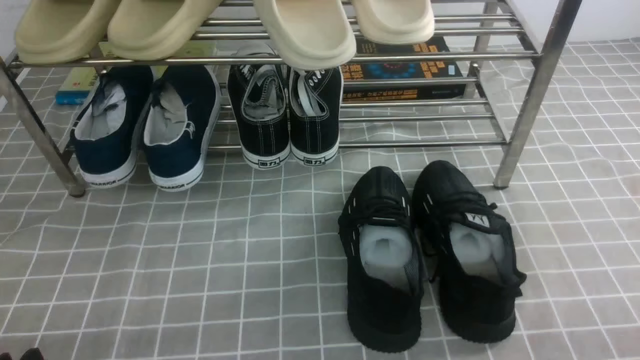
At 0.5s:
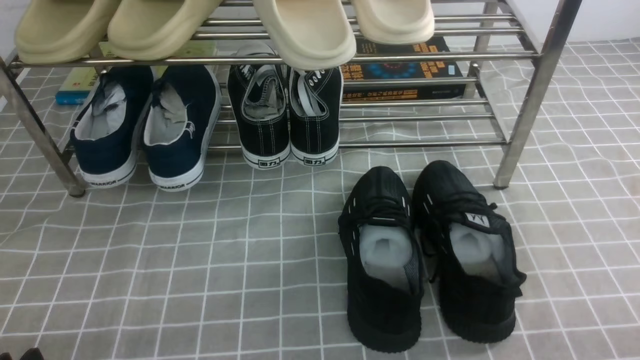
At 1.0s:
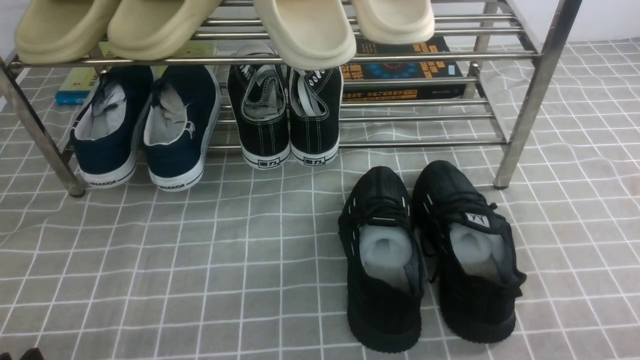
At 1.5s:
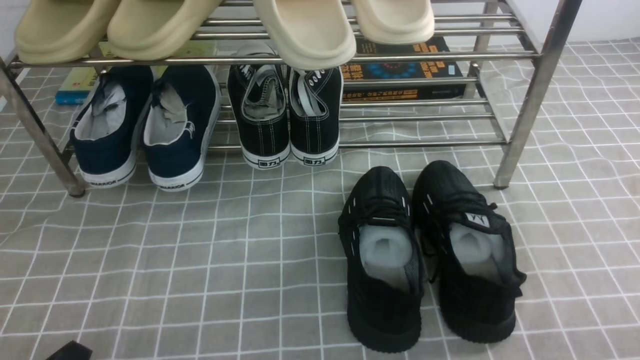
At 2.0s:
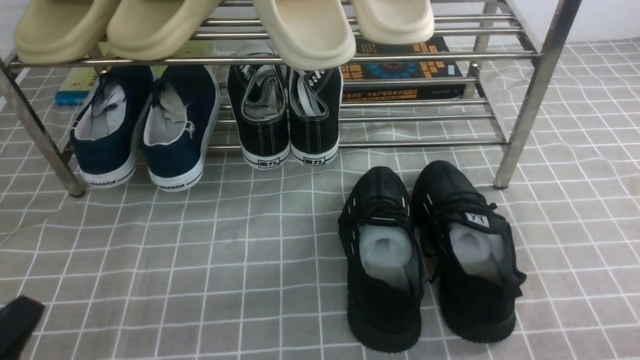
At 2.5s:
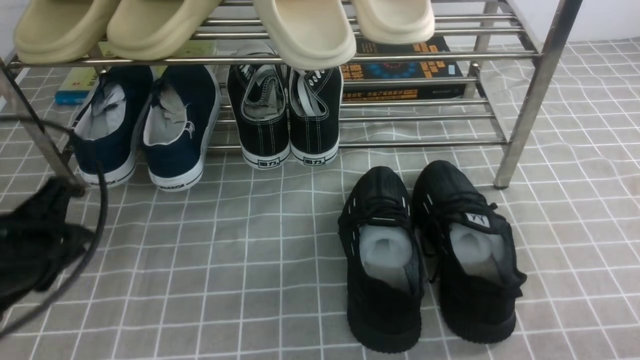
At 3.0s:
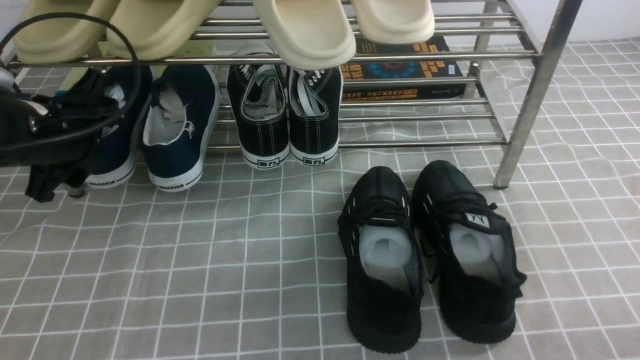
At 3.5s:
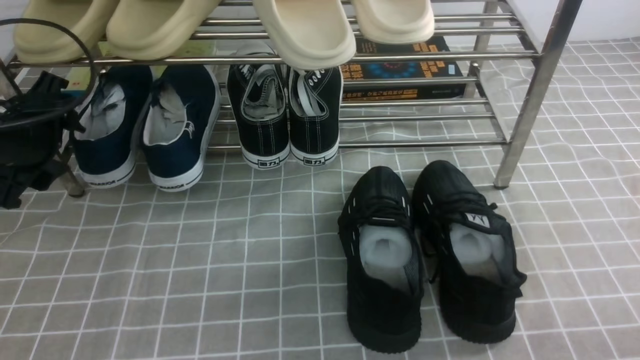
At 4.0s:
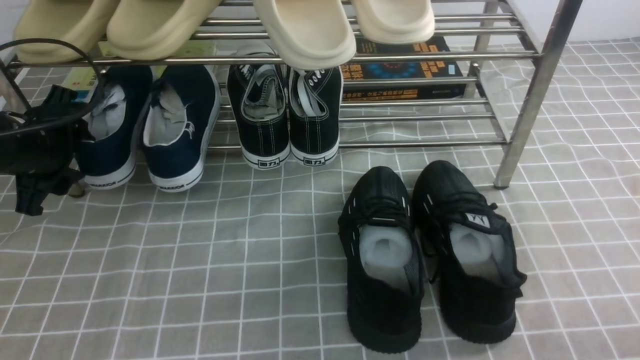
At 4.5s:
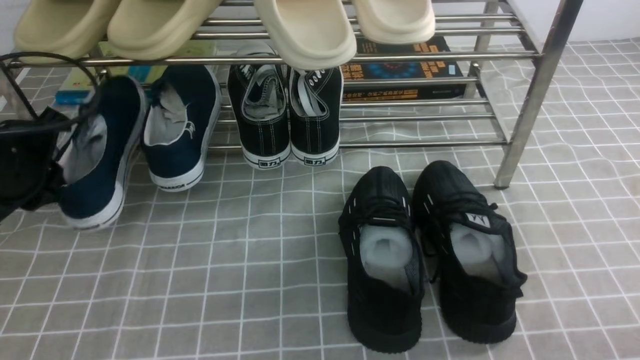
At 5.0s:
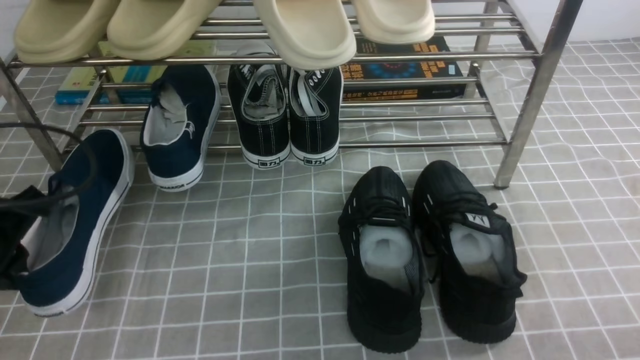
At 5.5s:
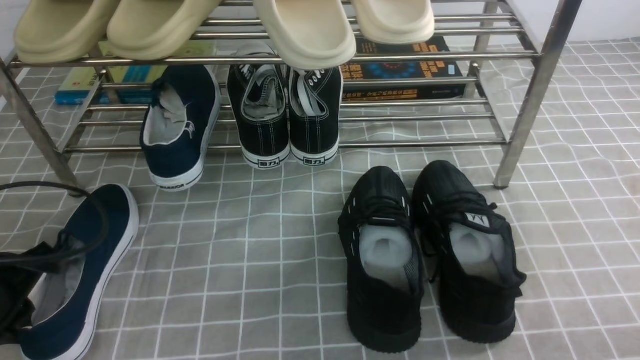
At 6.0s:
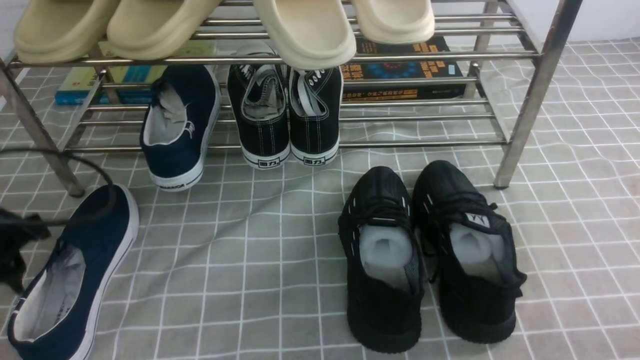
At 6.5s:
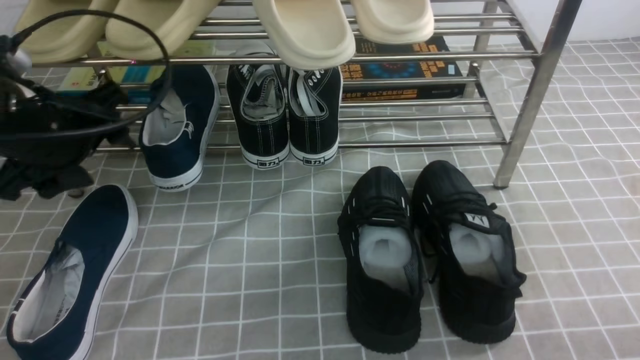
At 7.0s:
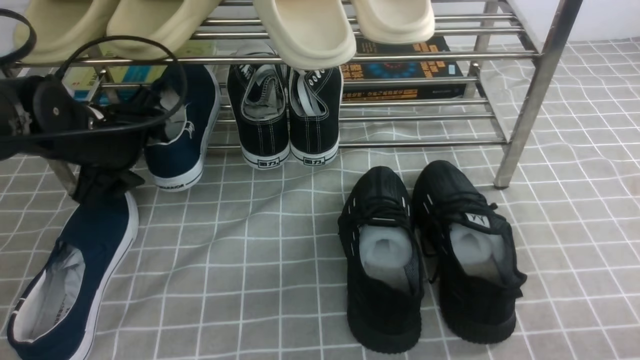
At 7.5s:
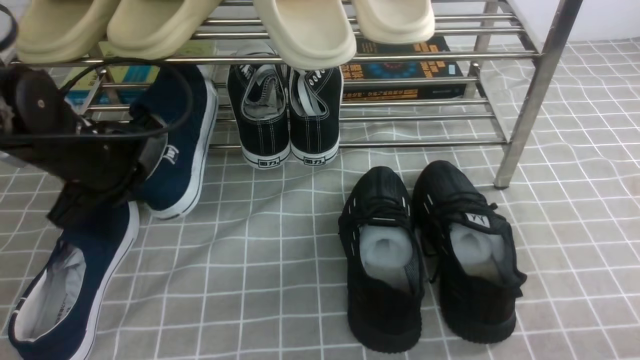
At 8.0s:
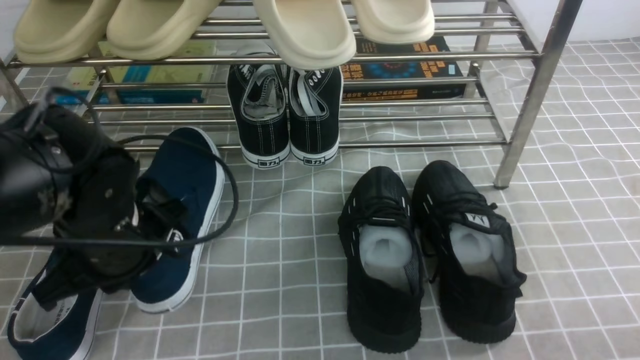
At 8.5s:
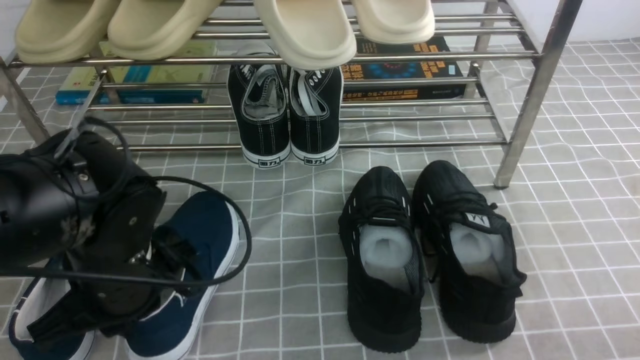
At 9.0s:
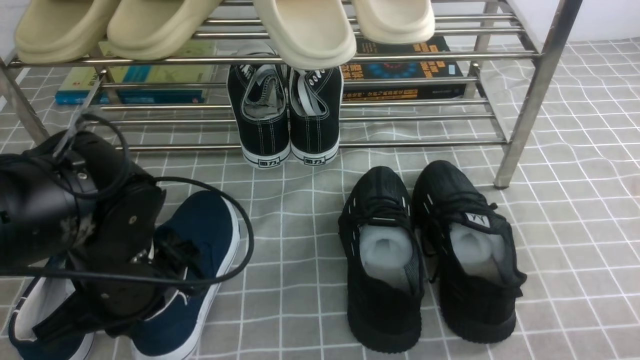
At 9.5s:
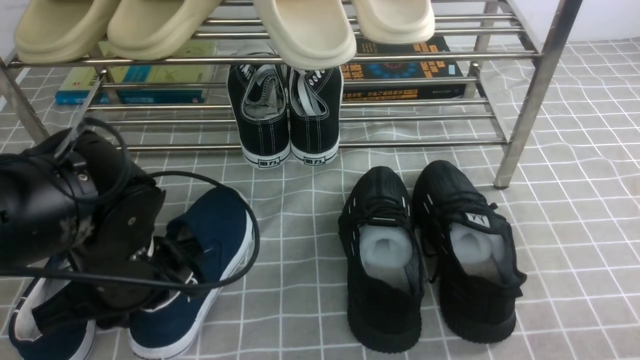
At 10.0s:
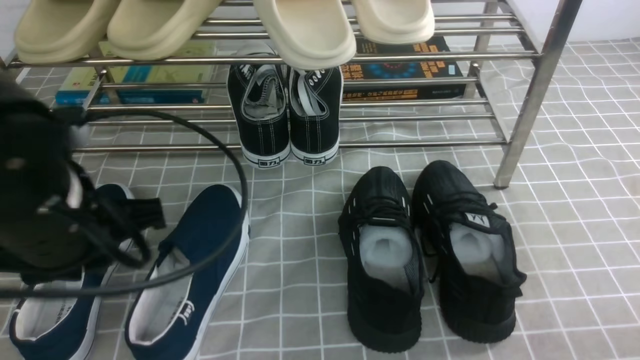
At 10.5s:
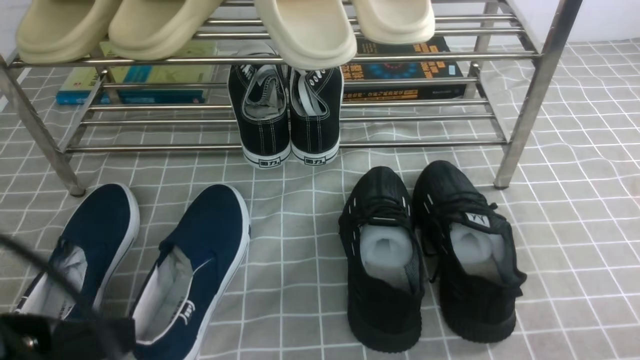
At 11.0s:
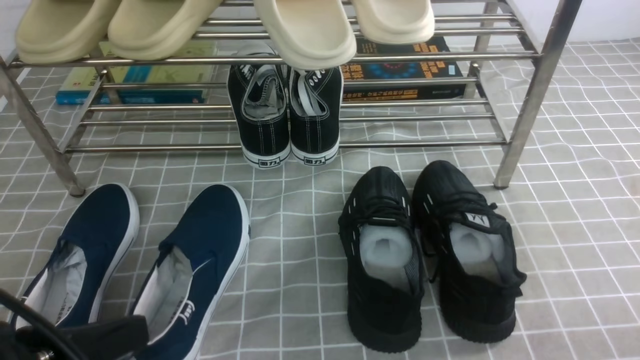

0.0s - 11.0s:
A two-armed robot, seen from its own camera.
Step, 0.0s - 4.0s: use the left arm to clamp a shoe on the left side of the shoe rack.
Step, 4.5s - 6.0s: Use your left arm to remove the clamped shoe from the shoe rack and put it down.
Step, 6.5s - 7.0s: use the left arm to clamp a shoe on the left side of the shoe rack.
Step, 8.0s - 9.5s: Use your left arm to remove the clamped shoe from the shoe rack and put it down.
0.0s - 2.0s: The left gripper is displaced upward by about 5 cm, and closes up.
2.0s - 3.5s: The left gripper shifts some 25 cm forward, and opens.
3.5s - 5.5s: The left gripper goes some 15 cm backward and downward, and closes.
5.5s - 7.5s: The left gripper goes approximately 15 cm forward and to the right, and opens, then closes again.
7.5s - 9.0s: The left gripper moves backward and to the right, some 10 cm.
9.0s - 11.0s: The left gripper is displaced backward and upward by about 15 cm.

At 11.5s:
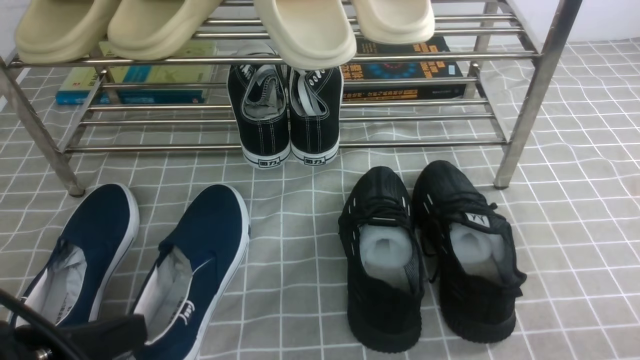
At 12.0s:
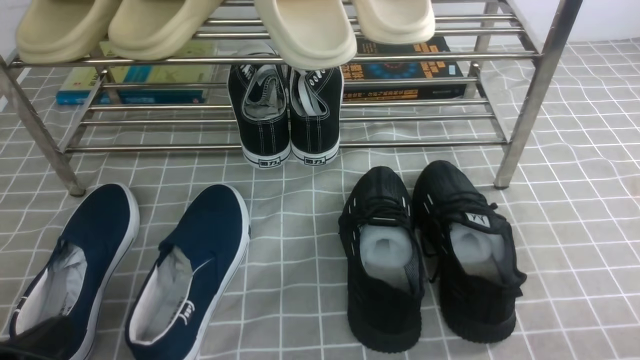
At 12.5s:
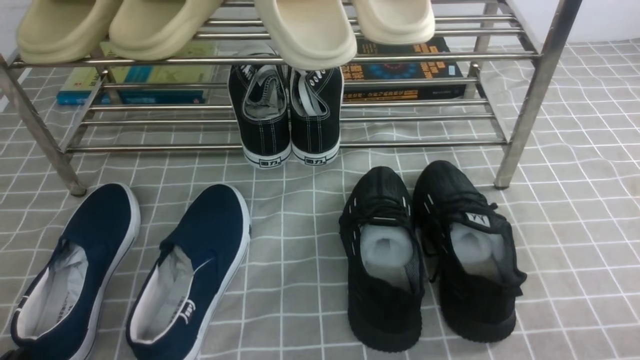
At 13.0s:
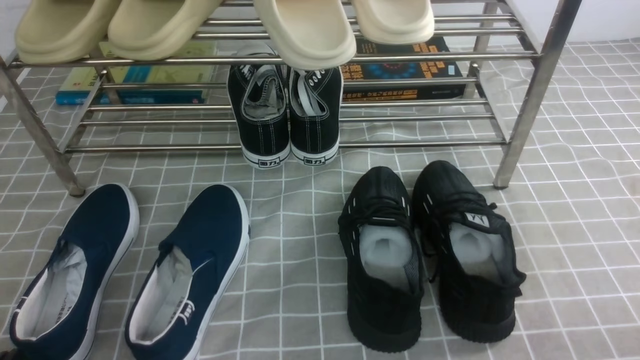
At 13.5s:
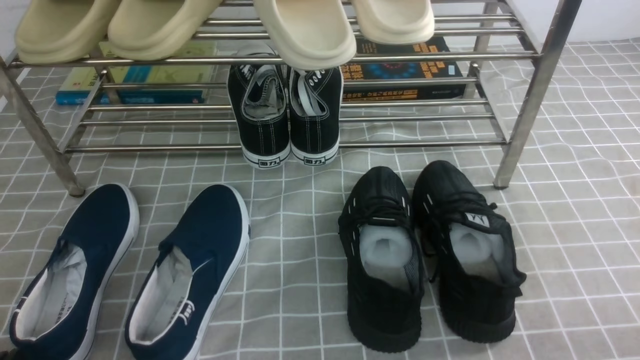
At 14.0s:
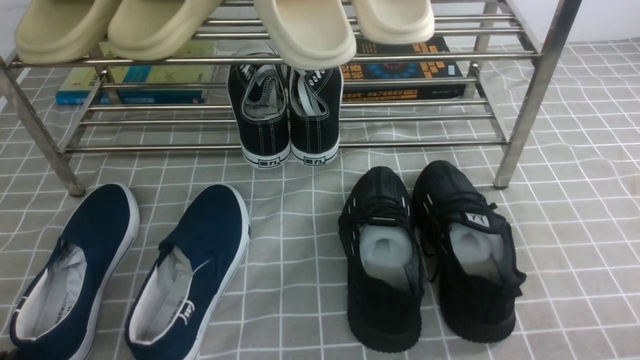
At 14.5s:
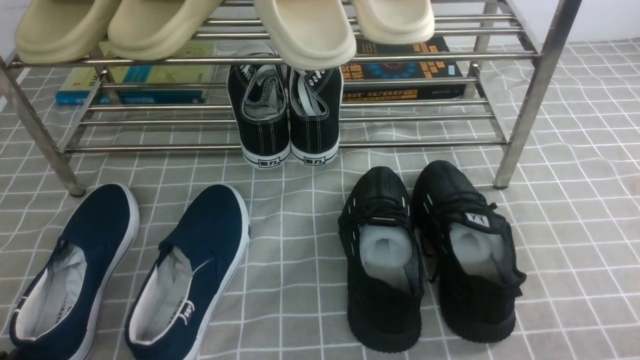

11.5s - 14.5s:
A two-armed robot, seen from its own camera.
11.5s - 13.0s: The left gripper shifts roughly 10 cm downward and to the left.
13.0s - 14.5s: The two grippers keep their place.

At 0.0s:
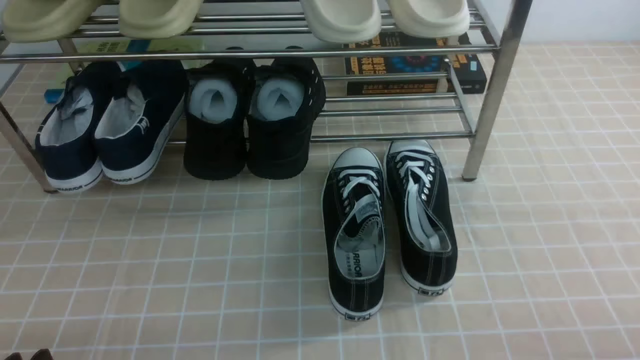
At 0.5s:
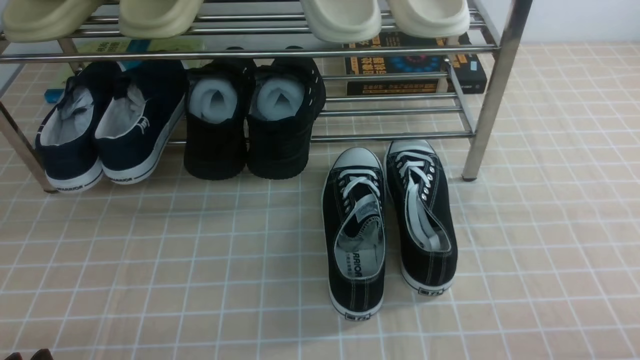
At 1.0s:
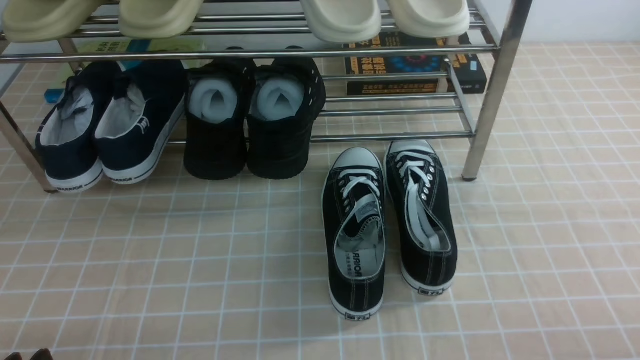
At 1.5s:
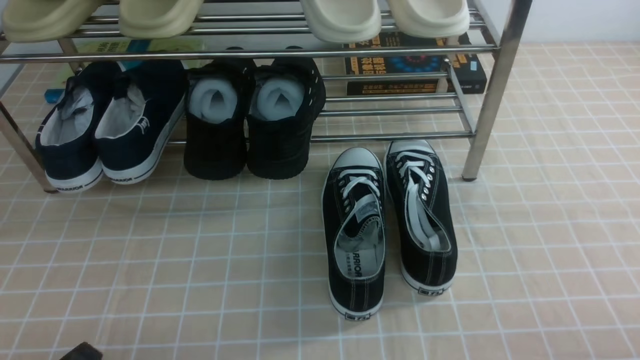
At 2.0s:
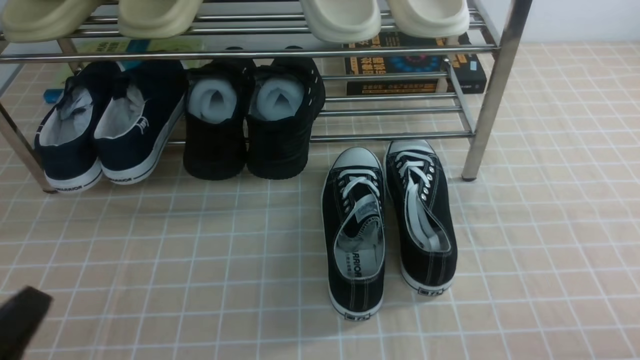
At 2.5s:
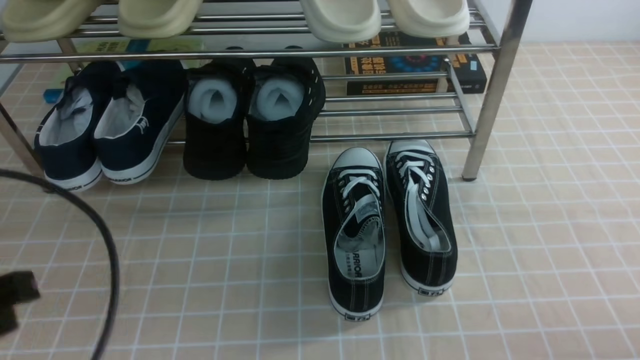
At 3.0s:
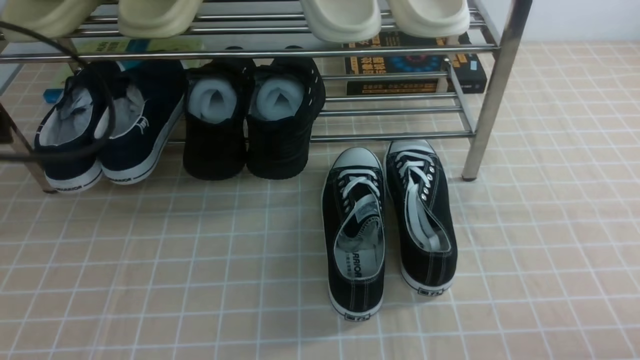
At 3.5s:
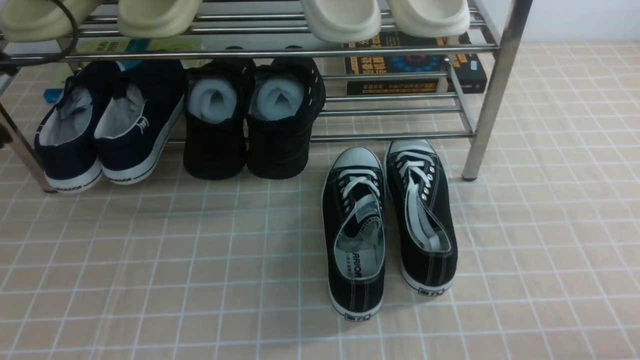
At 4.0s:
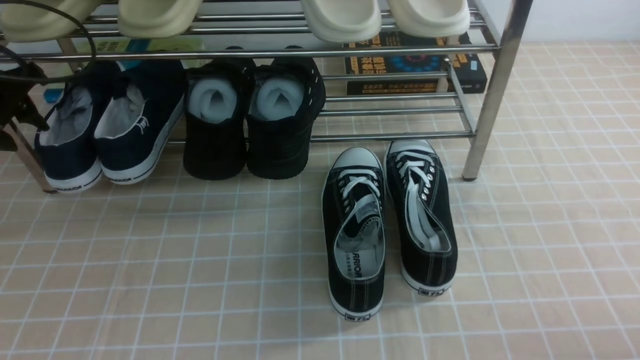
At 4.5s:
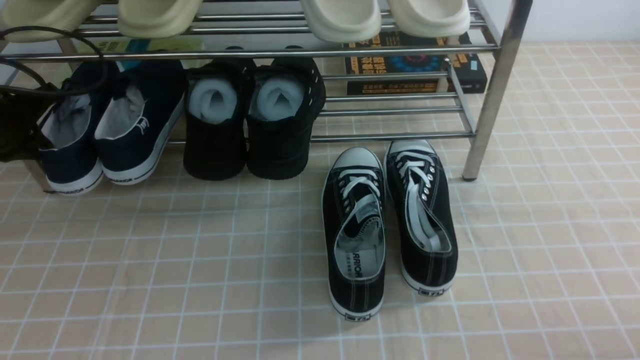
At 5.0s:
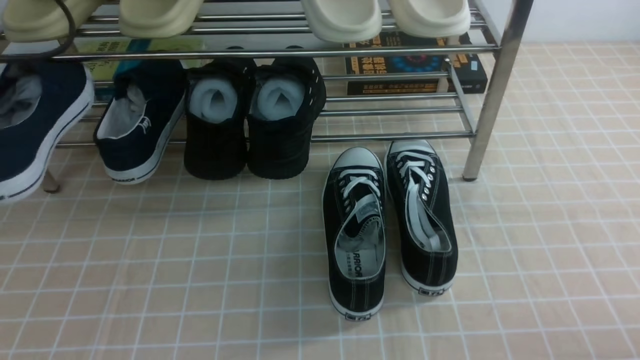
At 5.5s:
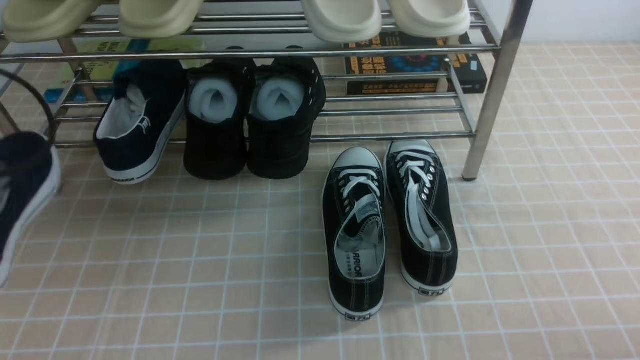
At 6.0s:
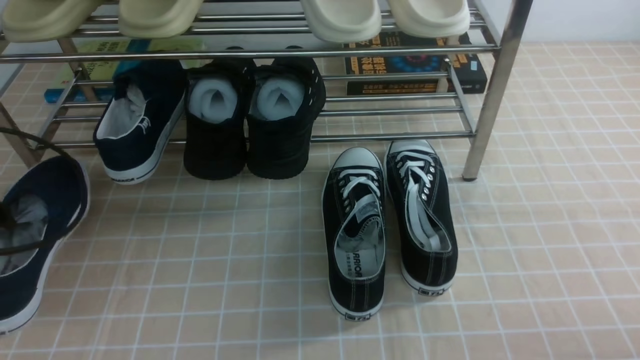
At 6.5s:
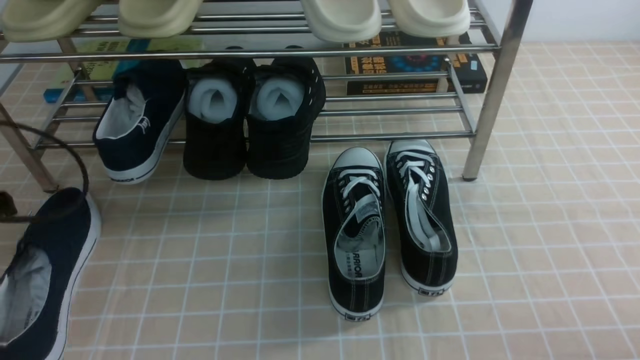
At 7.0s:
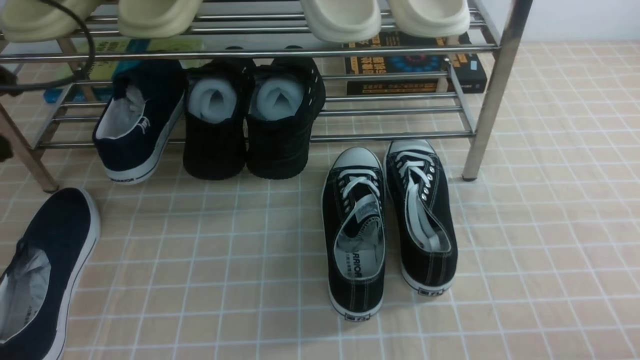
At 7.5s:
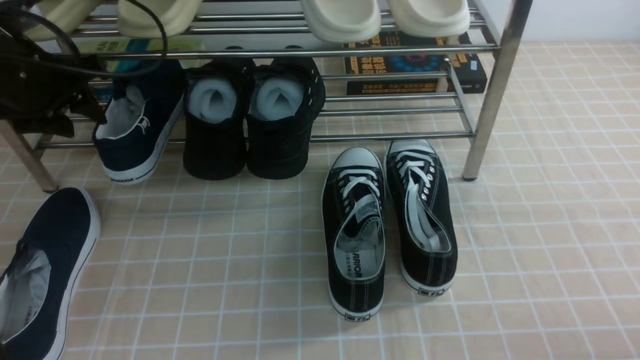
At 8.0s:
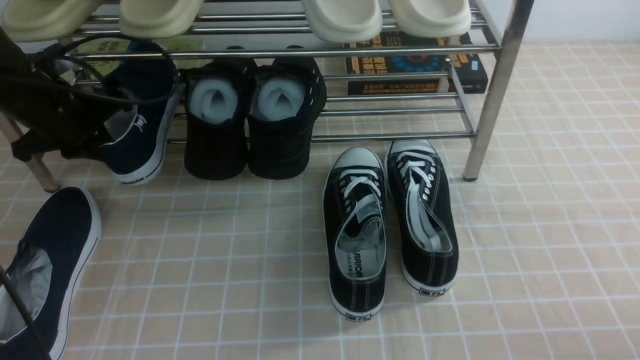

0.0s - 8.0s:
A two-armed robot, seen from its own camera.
Step, 0.0s - 4.0s: use the left arm to clamp a shoe on the left side of the shoe rack.
Step, 4.5s - 6.5s: Use your left arm to remove the clamped shoe from the shoe rack and put it down.
0.0s - 2.0s: The left gripper is displaced upward by roughly 5 cm, and closes up.
2.0s - 4.0s: The left gripper moves forward, approximately 35 cm, and opens up.
4.0s - 6.0s: The left gripper moves backward, some 15 cm, and closes.
6.0s - 8.0s: The left gripper goes approximately 20 cm forward, and opens, then closes once more.
